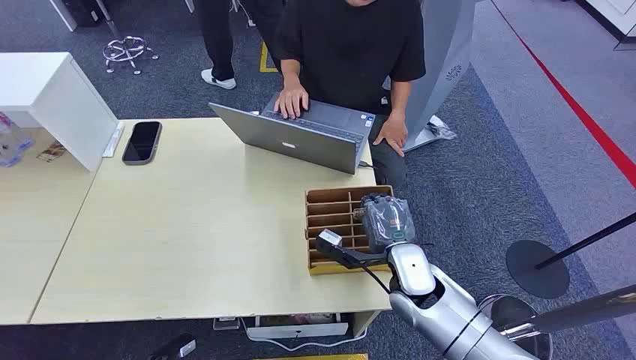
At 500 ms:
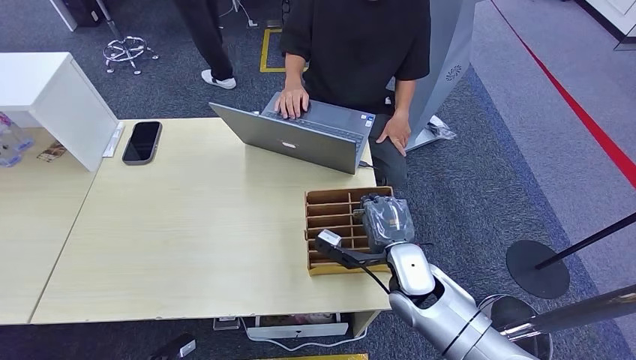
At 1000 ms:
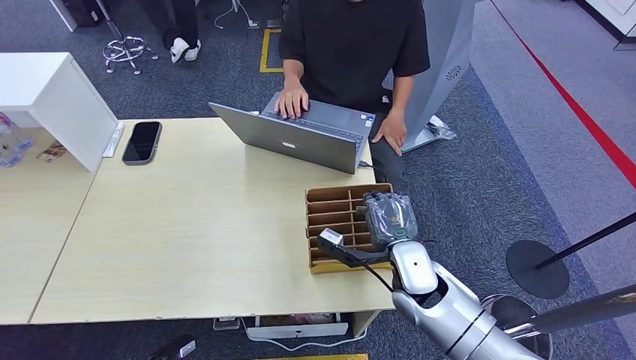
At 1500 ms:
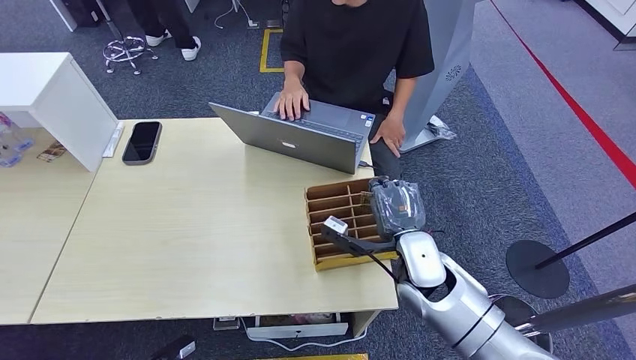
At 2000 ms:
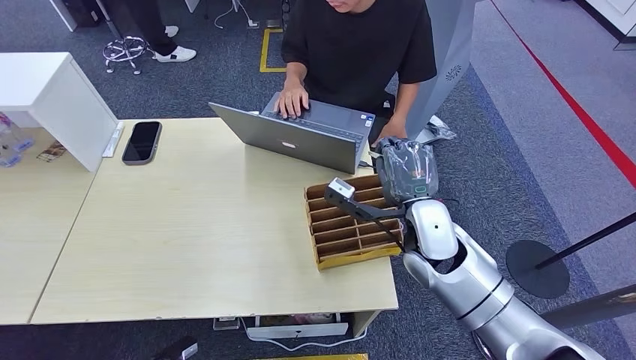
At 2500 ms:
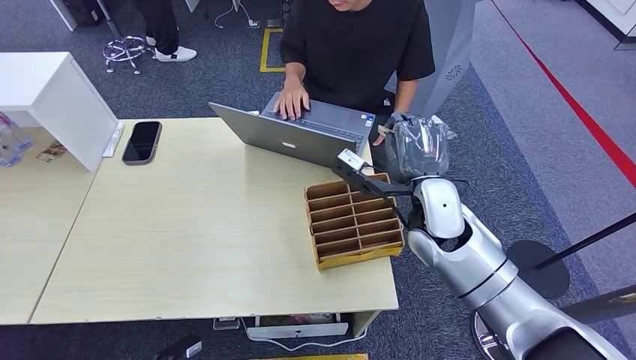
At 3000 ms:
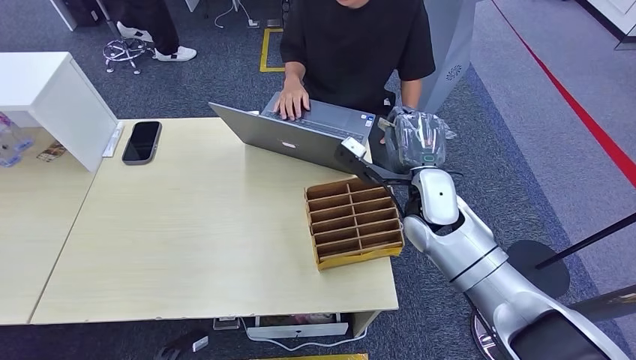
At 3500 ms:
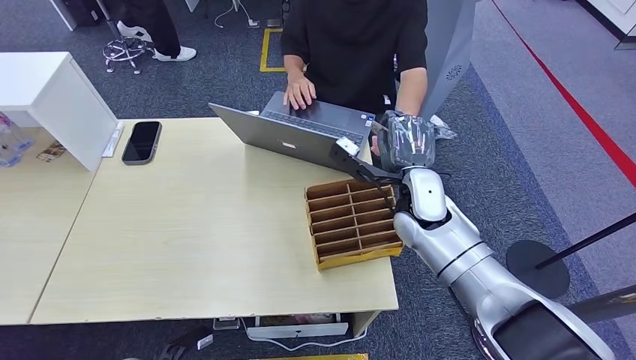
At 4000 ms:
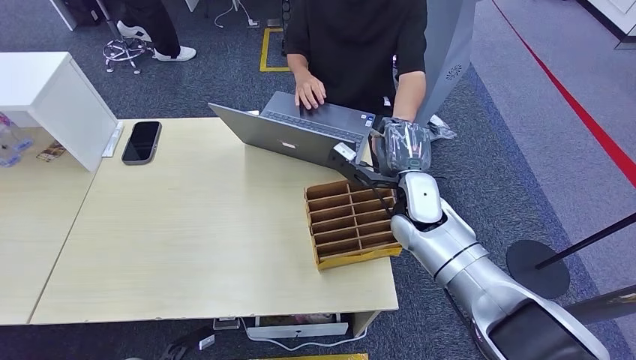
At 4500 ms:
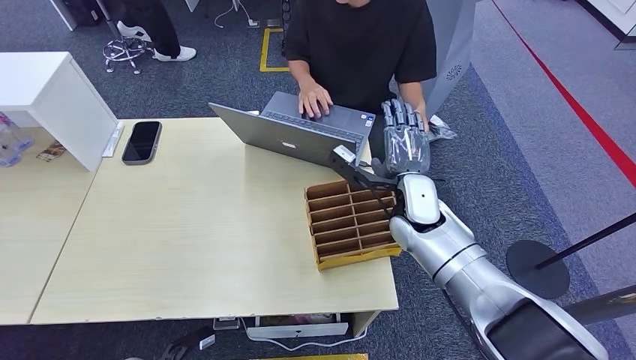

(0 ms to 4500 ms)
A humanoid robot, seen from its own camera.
Step, 0 ms - 1500 ms: Pick up the key card from the card box.
Step, 2000 ms - 4500 ms: Hand the key card to the target.
2000 ms - 4500 ms: The right hand travels forward by about 5 cm.
